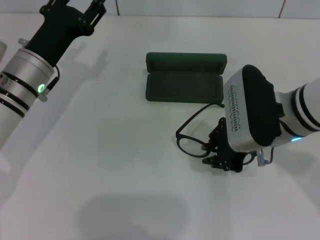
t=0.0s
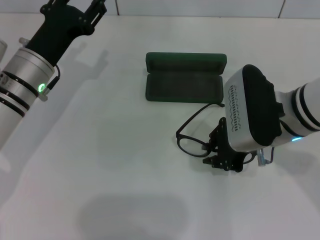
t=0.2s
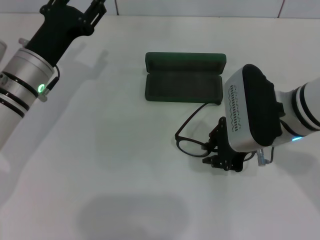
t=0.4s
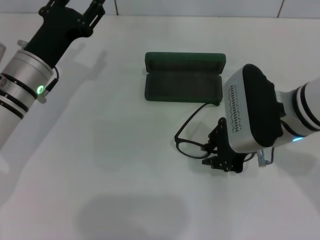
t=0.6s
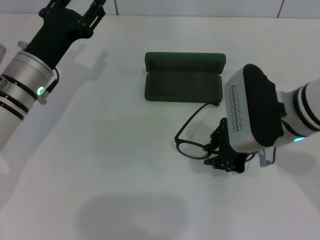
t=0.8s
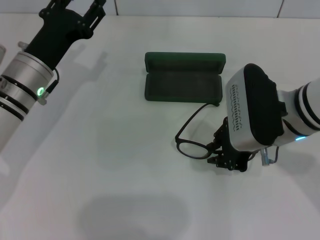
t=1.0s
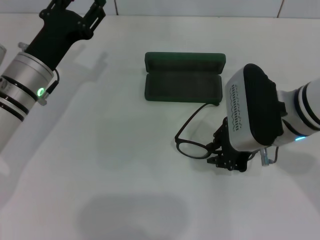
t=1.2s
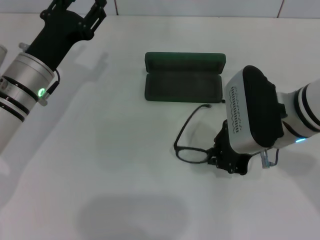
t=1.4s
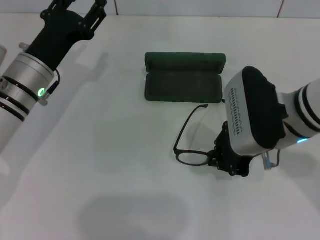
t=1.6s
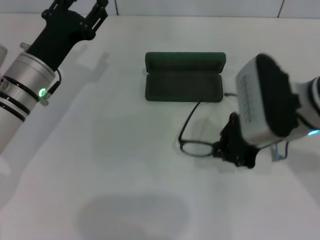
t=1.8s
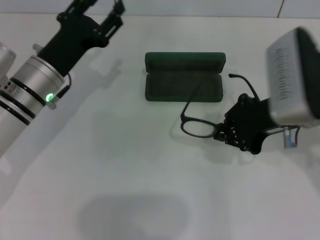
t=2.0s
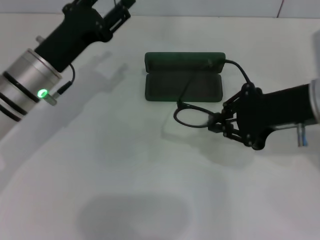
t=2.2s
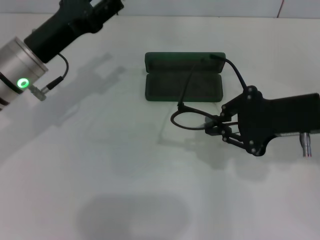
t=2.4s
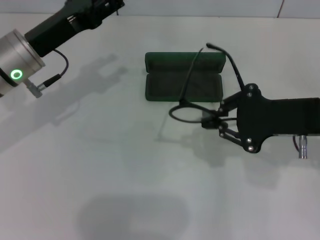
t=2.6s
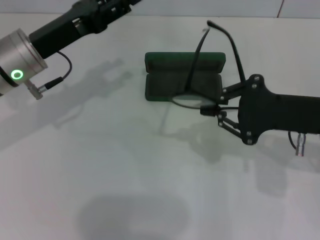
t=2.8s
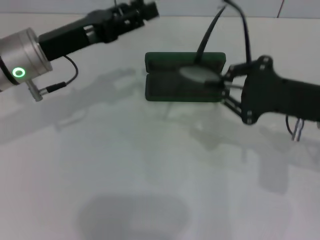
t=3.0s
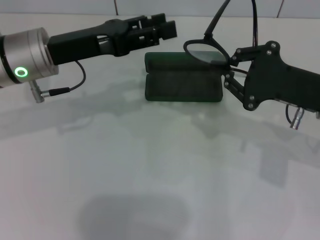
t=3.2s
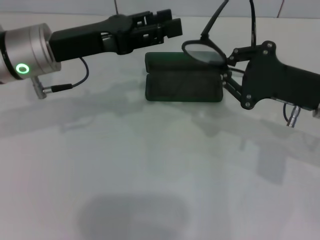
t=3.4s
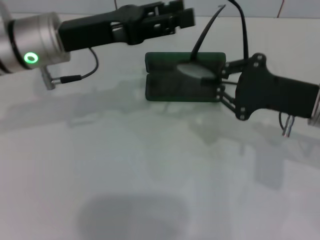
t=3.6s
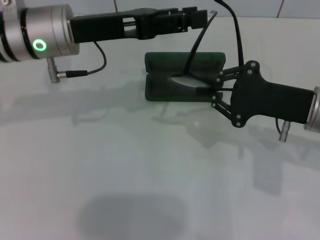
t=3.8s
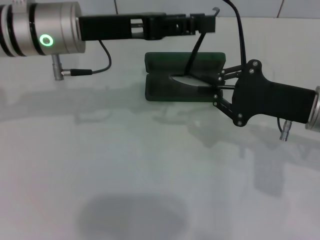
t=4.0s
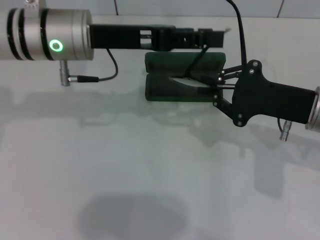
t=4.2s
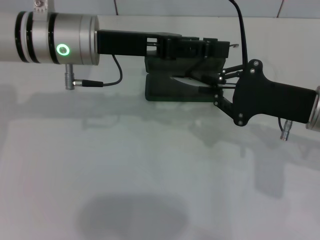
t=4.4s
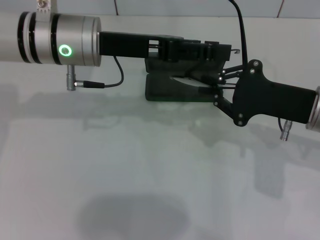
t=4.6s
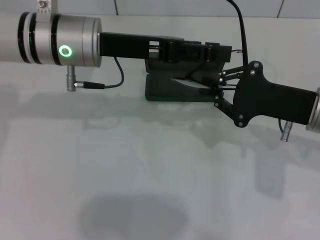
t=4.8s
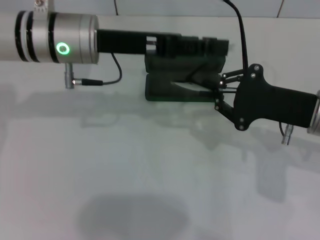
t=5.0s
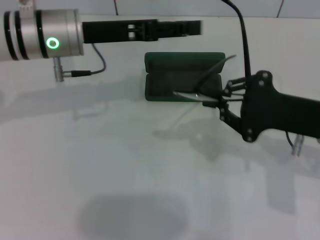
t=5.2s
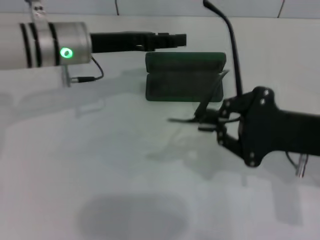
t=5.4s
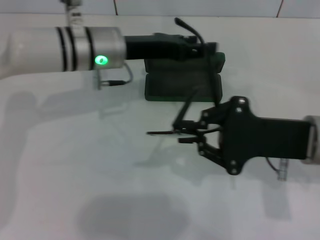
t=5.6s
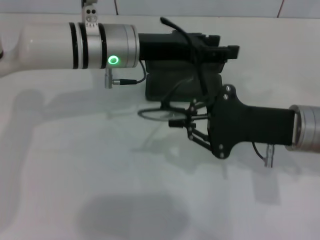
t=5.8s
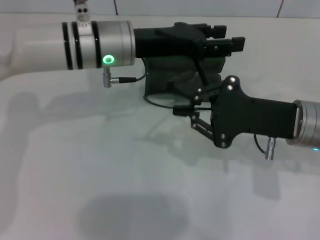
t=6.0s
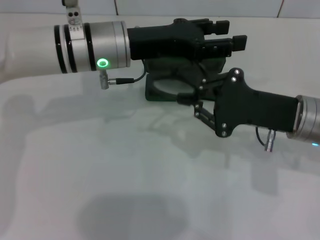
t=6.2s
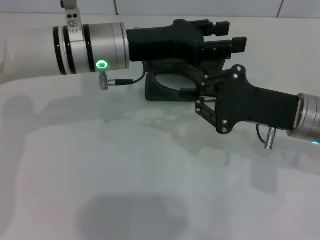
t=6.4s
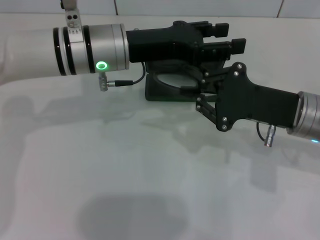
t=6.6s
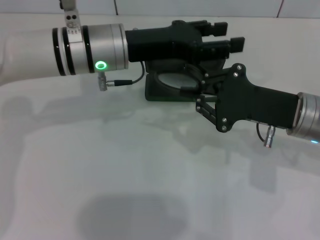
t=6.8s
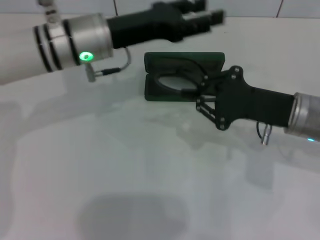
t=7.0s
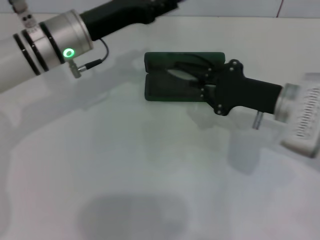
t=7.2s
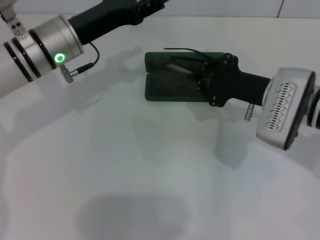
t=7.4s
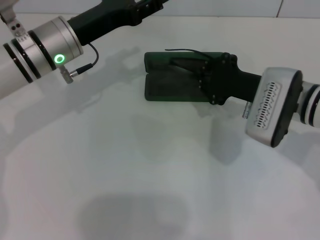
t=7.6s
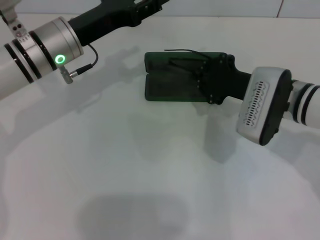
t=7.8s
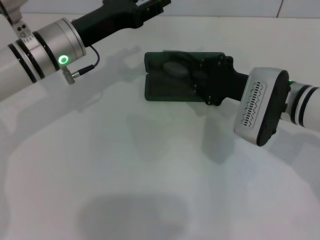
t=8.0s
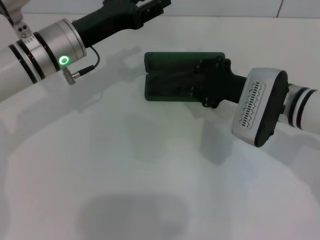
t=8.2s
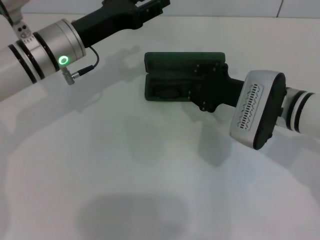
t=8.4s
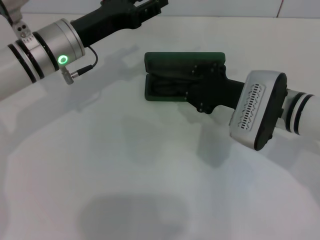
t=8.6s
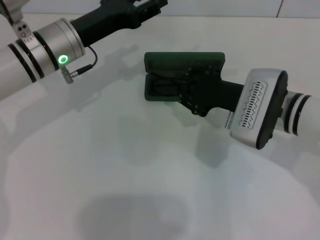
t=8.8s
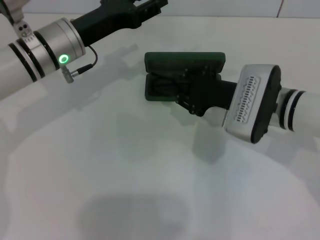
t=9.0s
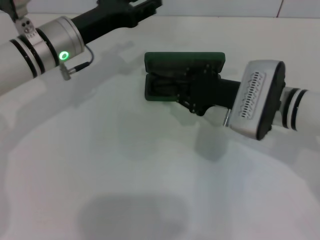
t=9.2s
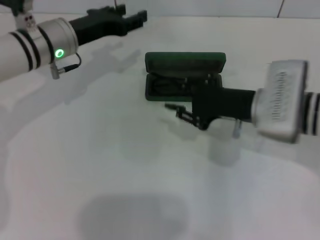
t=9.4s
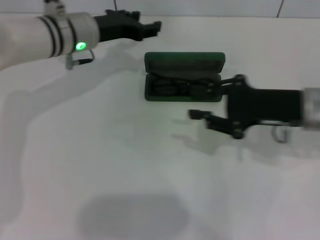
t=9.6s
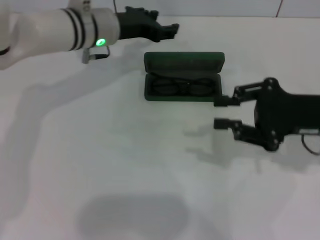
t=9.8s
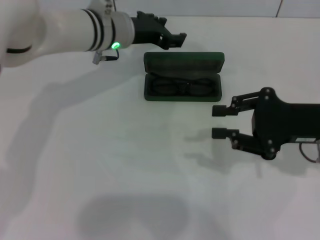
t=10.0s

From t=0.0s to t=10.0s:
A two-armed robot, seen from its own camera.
Step, from t=1.8s to t=6.4s: Fold the frame with your left hand.
Step, from t=6.6s to t=9.0s: Put the glasses into the case with your right hand.
From t=0.0s to t=1.4s: The two grippers keep their place.
From t=1.4s to t=2.8s: The left gripper shifts approximately 5 cm upward. Meanwhile the right gripper shifts approximately 10 cm to the right.
From t=2.8s to t=4.2s: The left gripper moves to the right, approximately 5 cm.
From t=4.2s to t=5.8s: The left gripper moves approximately 5 cm.
From t=5.8s to t=7.2s: The left gripper goes roughly 5 cm to the left. Meanwhile the right gripper shifts by about 5 cm.
From t=7.2s to t=8.6s: The grippers move only a little.
From t=8.6s to t=10.0s: The right gripper is displaced to the right by roughly 10 cm. The left gripper is displaced to the right and forward by some 10 cm.

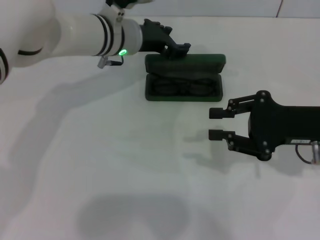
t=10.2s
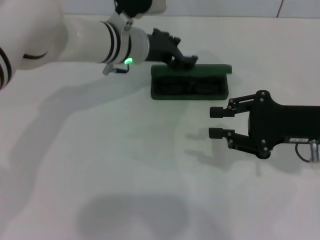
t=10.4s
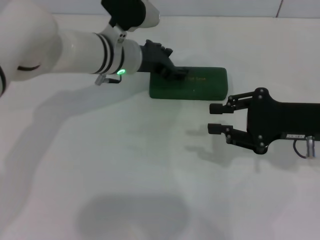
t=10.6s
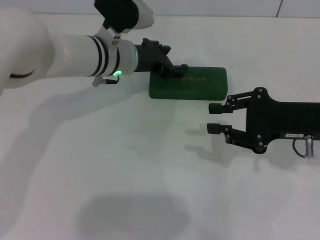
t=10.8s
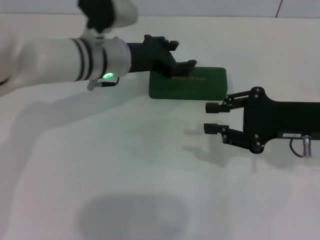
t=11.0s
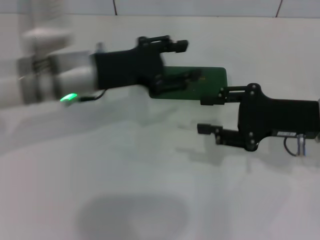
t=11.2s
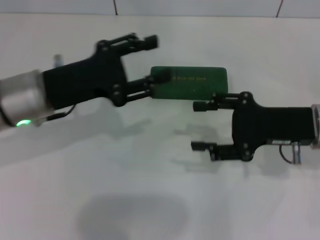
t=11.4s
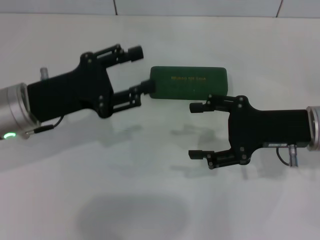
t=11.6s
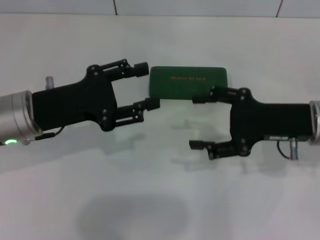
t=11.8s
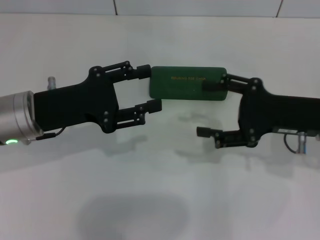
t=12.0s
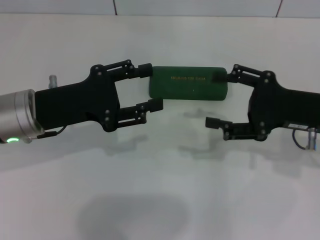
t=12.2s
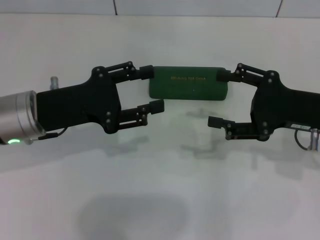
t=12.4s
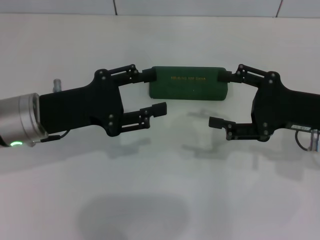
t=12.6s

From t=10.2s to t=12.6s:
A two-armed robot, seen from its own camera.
From t=10.2s to t=11.4s: The left gripper moves backward and to the left, roughly 20 cm.
From t=11.4s to t=12.6s: The right gripper opens its fingers.

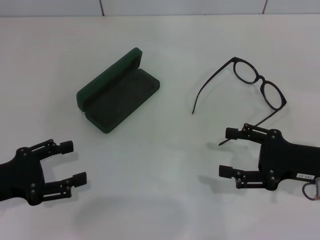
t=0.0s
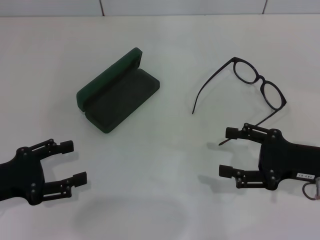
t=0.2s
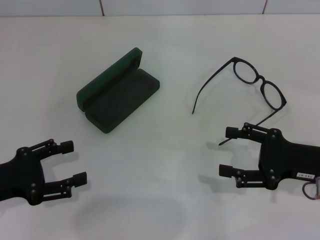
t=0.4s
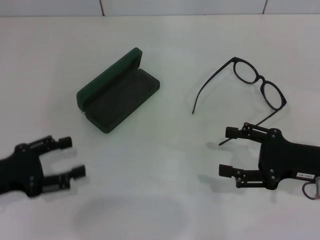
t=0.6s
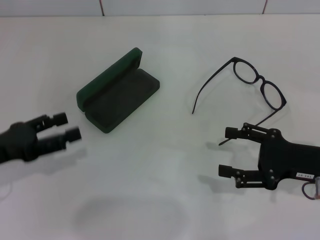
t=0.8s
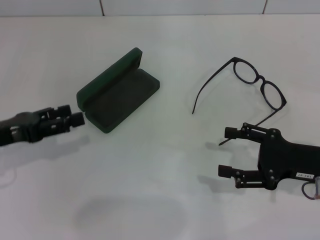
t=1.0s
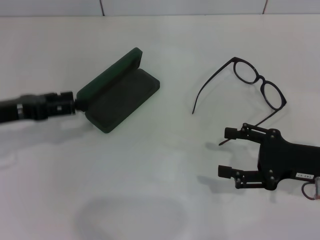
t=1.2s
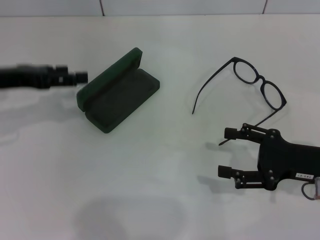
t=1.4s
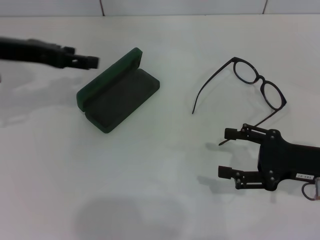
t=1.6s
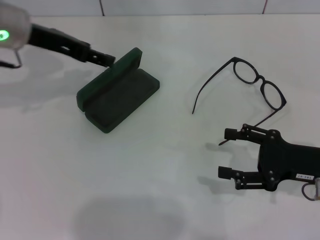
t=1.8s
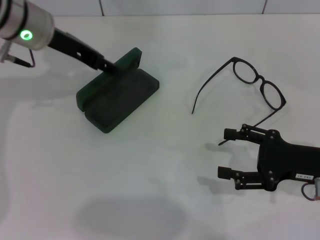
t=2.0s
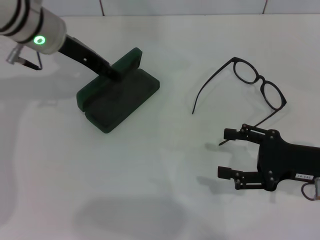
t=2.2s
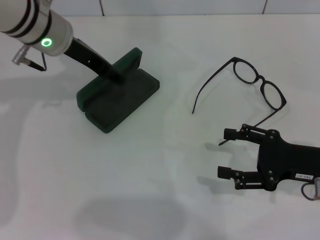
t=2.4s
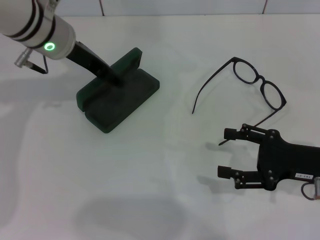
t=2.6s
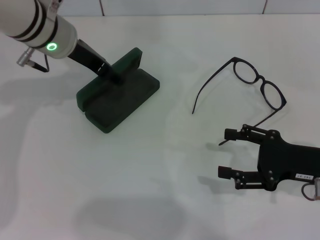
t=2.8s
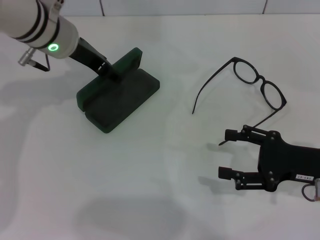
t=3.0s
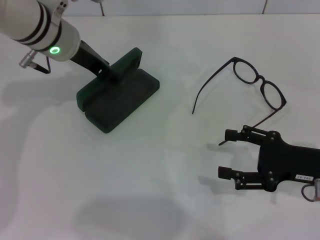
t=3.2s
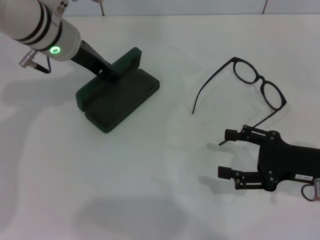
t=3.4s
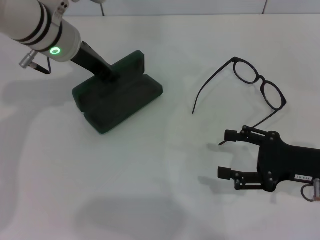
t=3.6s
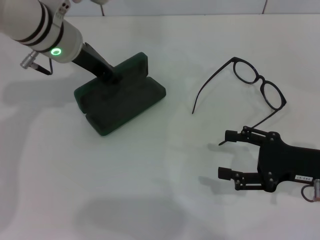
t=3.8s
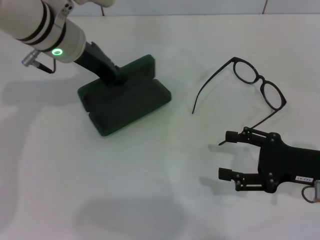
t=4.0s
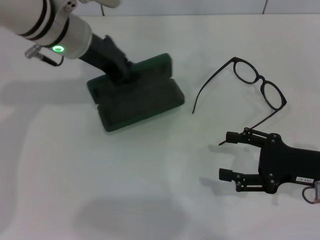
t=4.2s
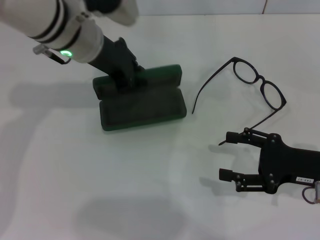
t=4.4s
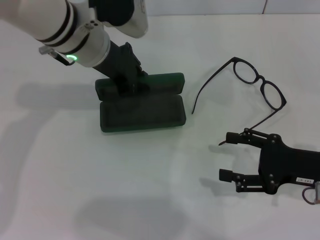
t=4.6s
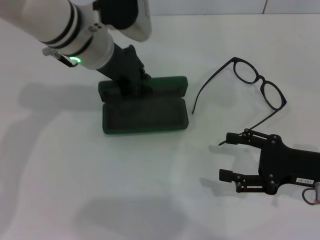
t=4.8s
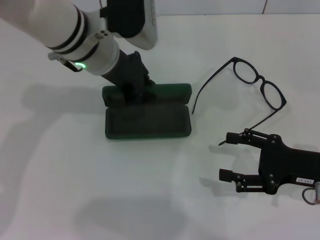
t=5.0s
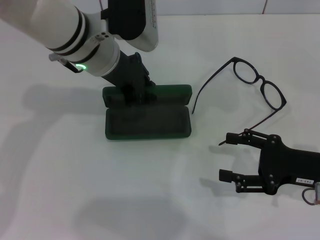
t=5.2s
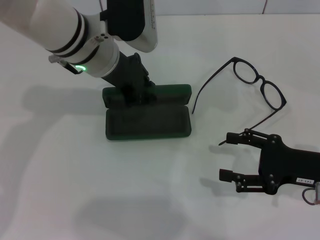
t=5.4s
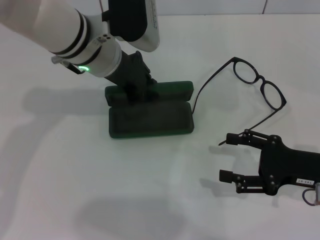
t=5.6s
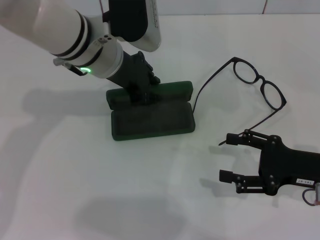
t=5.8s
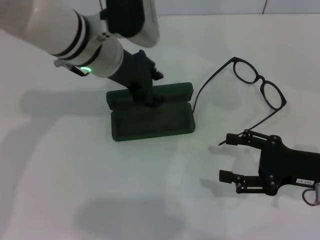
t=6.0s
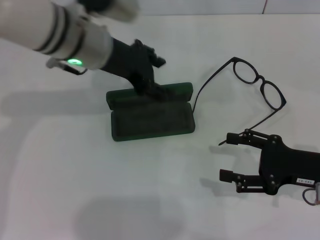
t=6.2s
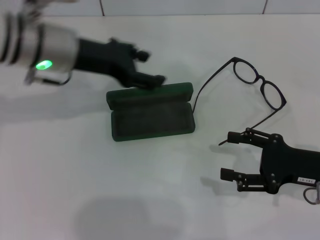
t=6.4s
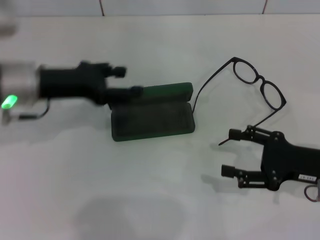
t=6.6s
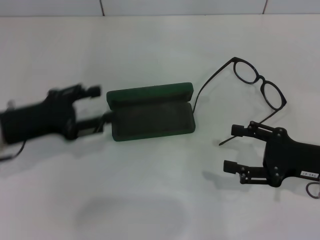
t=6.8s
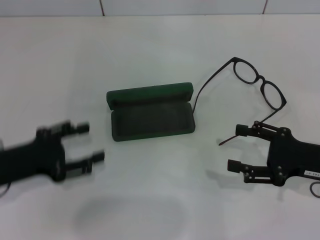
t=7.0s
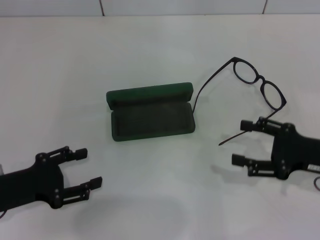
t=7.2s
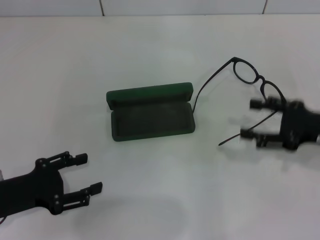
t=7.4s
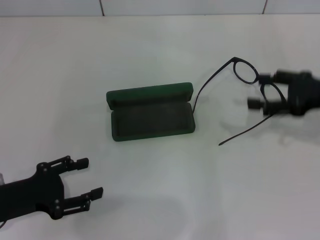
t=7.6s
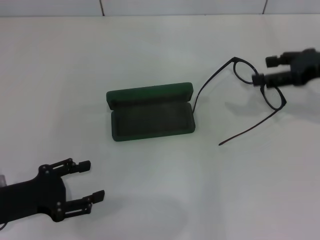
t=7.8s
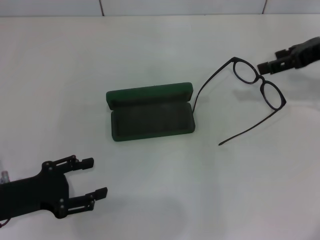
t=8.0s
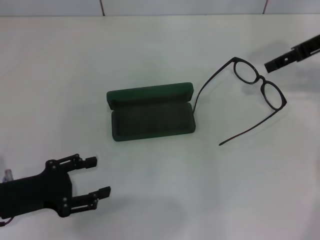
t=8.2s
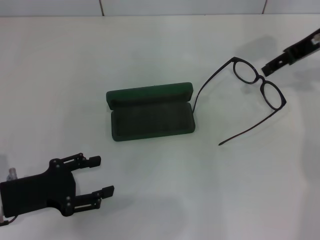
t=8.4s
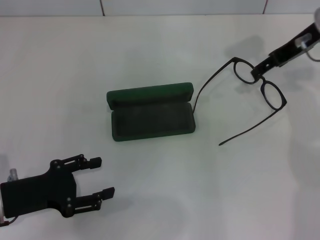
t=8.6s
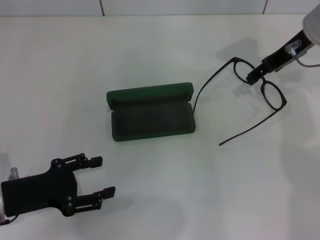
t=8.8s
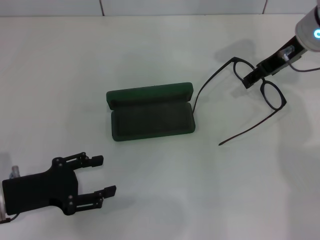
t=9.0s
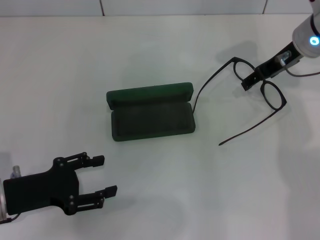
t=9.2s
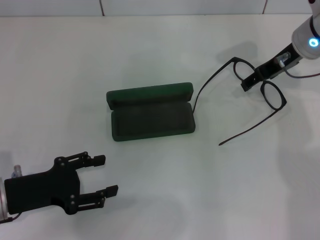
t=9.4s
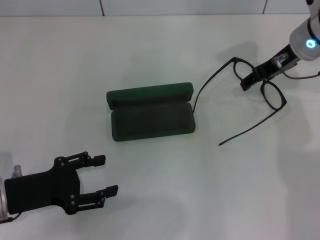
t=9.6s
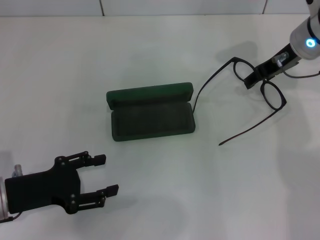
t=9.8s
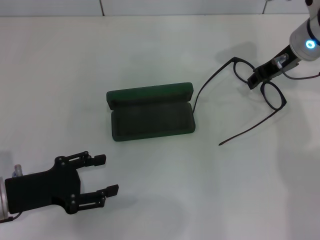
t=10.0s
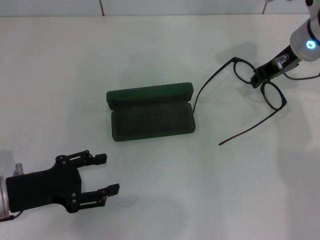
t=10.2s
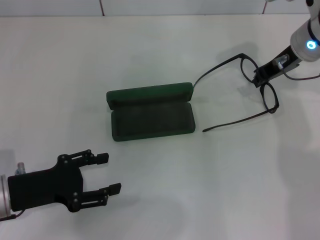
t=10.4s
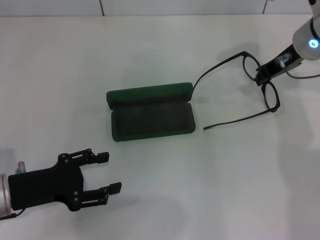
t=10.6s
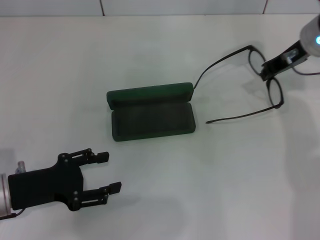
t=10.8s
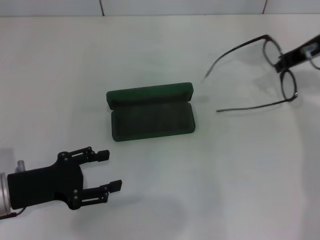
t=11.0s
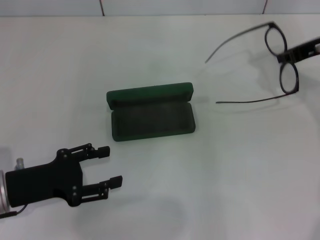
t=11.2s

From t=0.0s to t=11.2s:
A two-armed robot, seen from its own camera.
Step, from t=0.0s to t=3.4s: Grab the glasses case with your left hand.
Step, from t=3.6s to t=5.8s: Place the glasses case in the center of the table with your left hand.
Step, from t=6.0s to t=10.2s: Grab the eyeglass frame with your right hand.
From t=0.0s to t=1.6s: The left gripper moves forward and upward, about 20 cm.
From t=1.6s to t=3.2s: The left gripper moves to the right, approximately 10 cm.
From t=3.2s to t=4.8s: The left gripper moves some 5 cm, and closes its fingers.
From t=4.8s to t=6.4s: The left gripper goes about 5 cm to the left, and opens its fingers.
From t=6.4s to t=8.0s: The right gripper heads forward and upward, covering about 20 cm; the left gripper is displaced backward, downward and to the left by about 25 cm.
From t=8.0s to t=9.6s: The right gripper travels to the left by approximately 10 cm.
From t=9.6s to t=11.2s: The right gripper goes about 5 cm to the right, and closes up.
